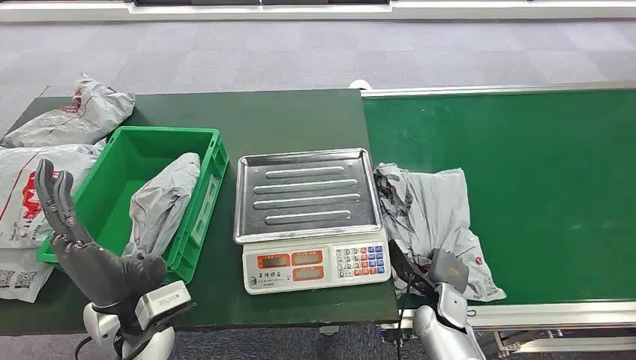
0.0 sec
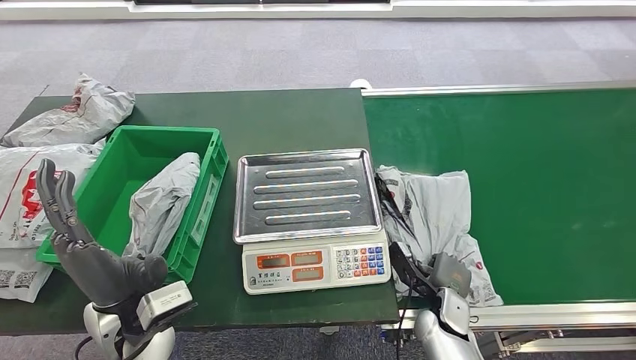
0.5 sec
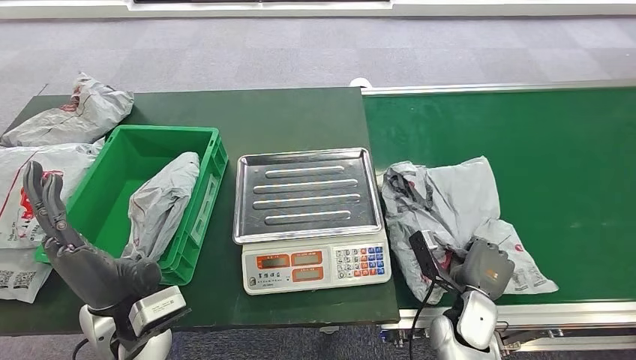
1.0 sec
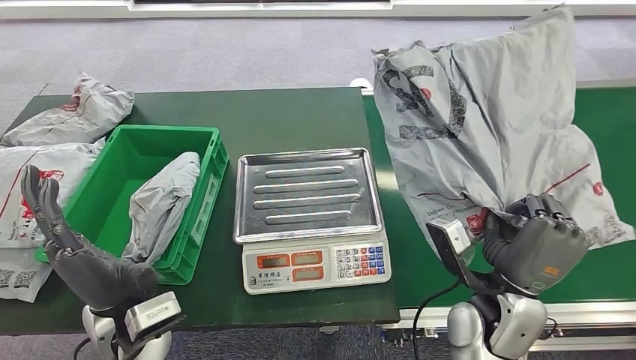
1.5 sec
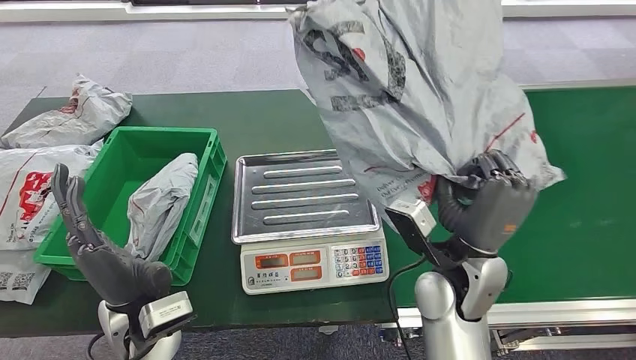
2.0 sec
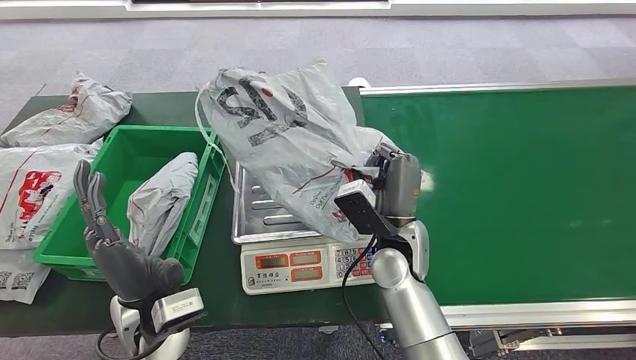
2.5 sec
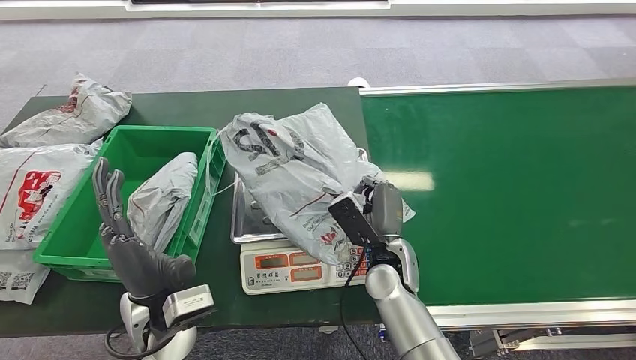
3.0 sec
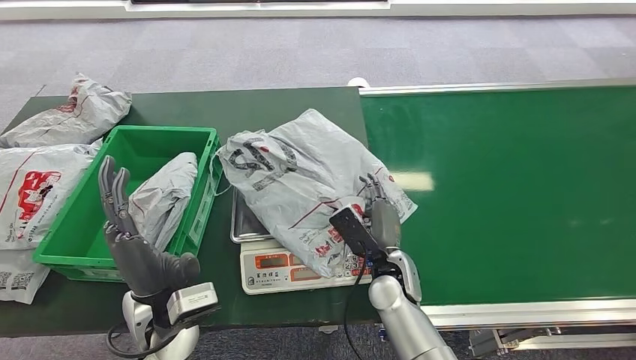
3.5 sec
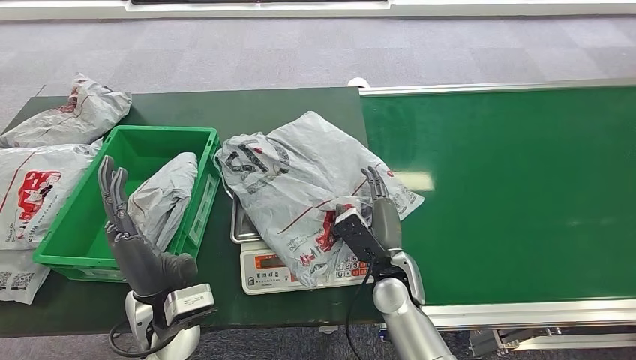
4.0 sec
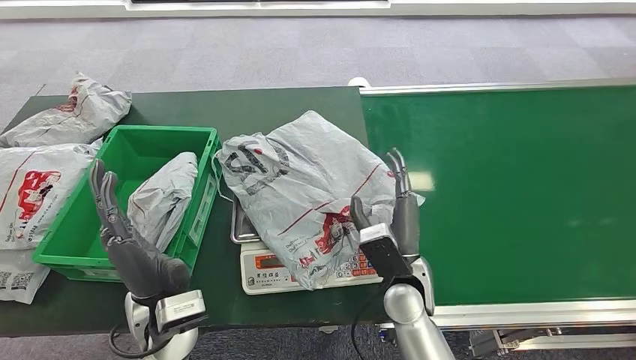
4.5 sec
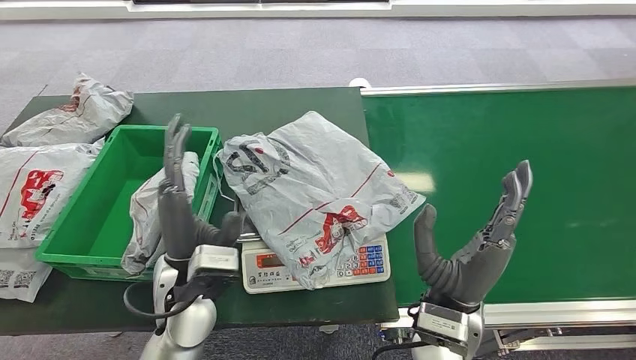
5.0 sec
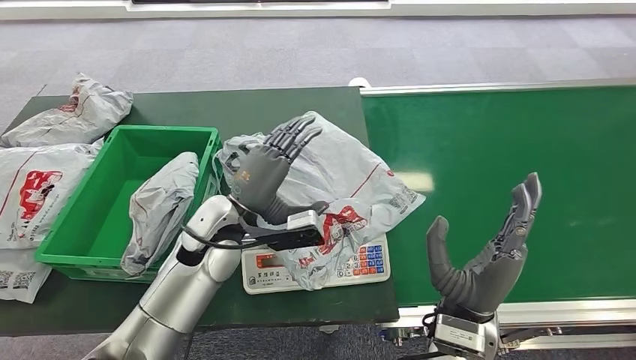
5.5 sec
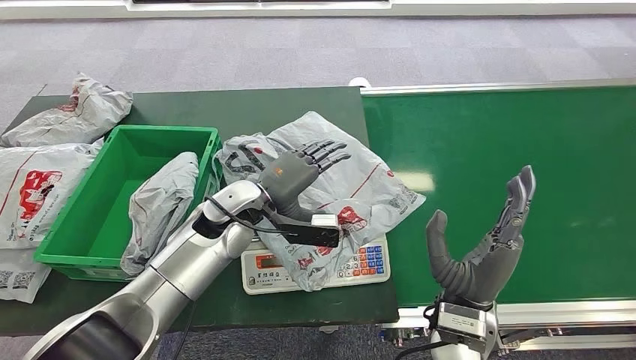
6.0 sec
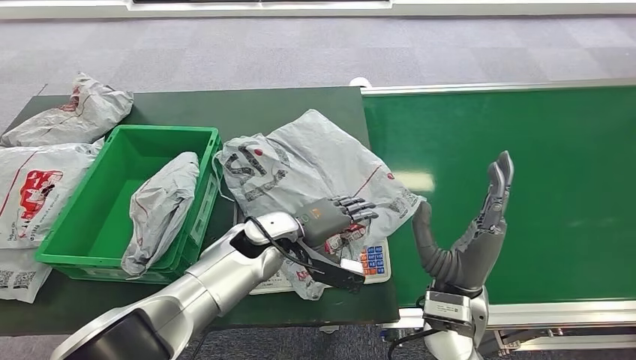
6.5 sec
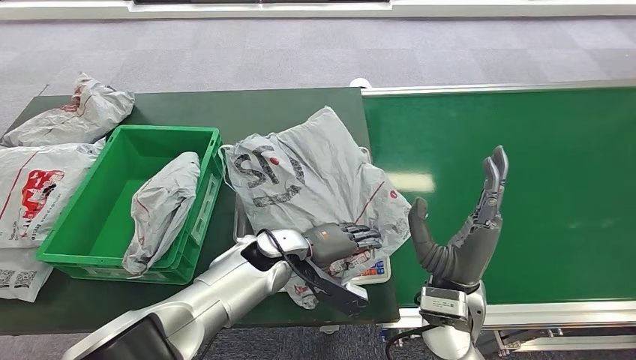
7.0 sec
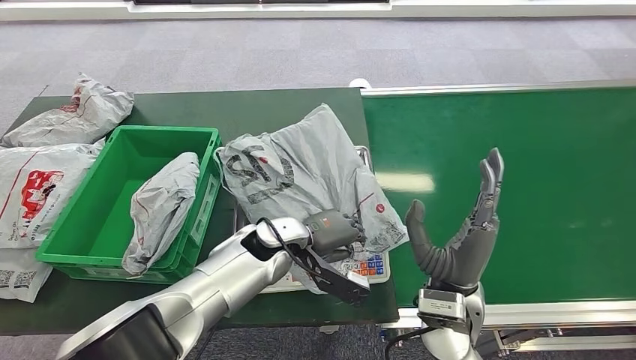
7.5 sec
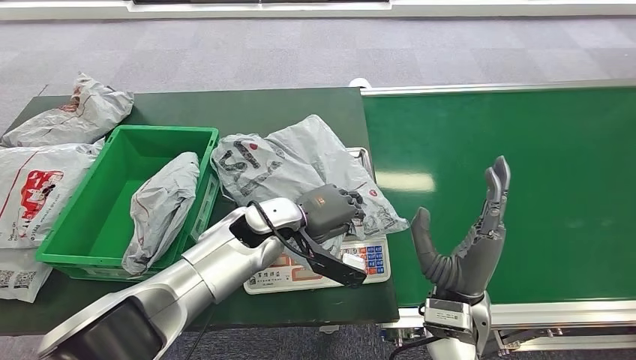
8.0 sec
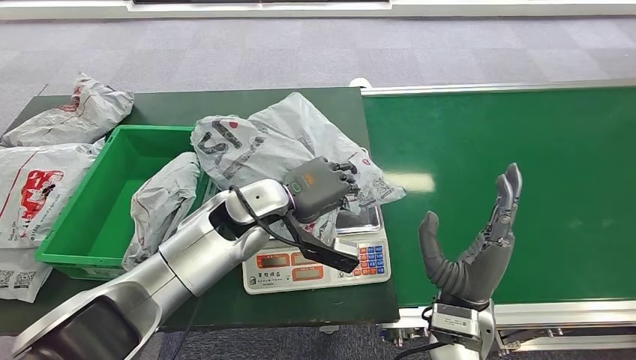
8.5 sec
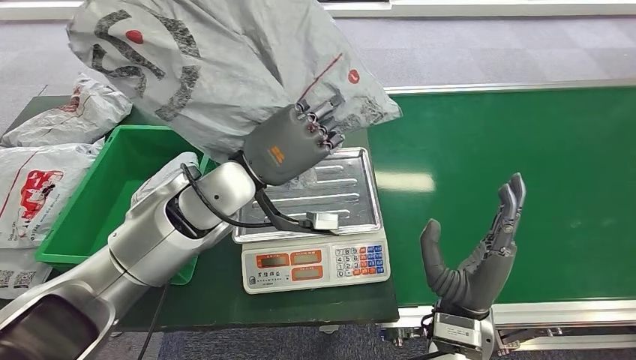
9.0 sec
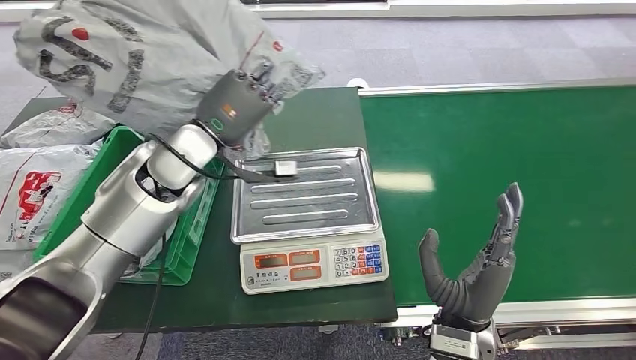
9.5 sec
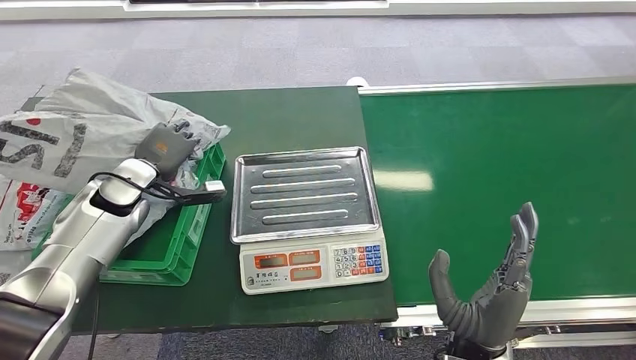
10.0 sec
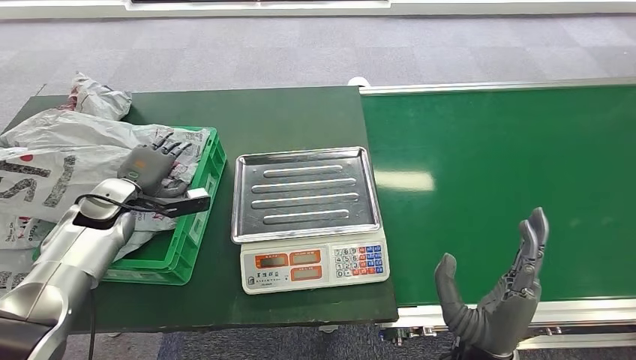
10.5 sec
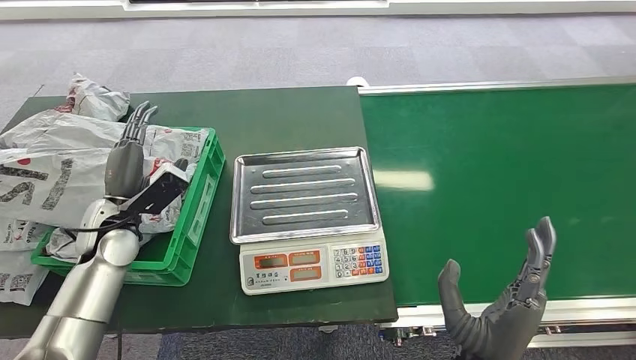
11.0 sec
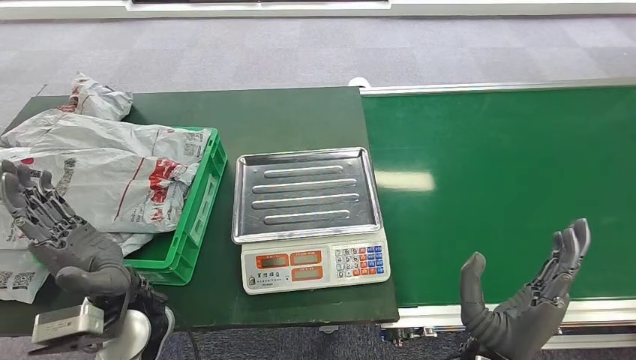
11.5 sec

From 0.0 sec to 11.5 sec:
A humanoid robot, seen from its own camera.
Step, from 0.0 sec to 1.5 sec: Pick up the package from the conveyor belt.
Step, from 2.0 sec to 4.5 sec: Place the package onto the inbound machine.
Step, from 5.0 sec to 9.0 sec: Pick up the package from the inbound machine.
Step, from 9.5 sec to 11.5 sec: Place the package into the parcel locker.
From 4.0 sec to 6.0 sec: The right hand shifts about 15 cm upward, backward and to the right. The left hand is displaced forward by approximately 15 cm.

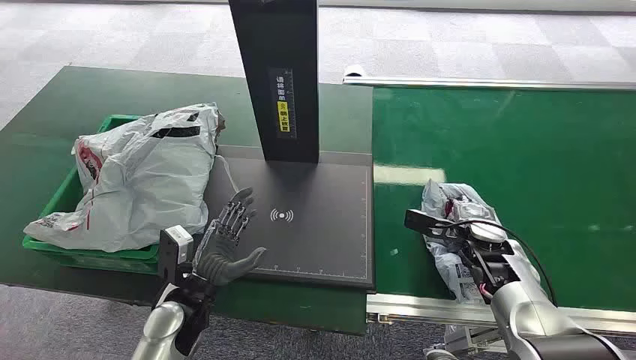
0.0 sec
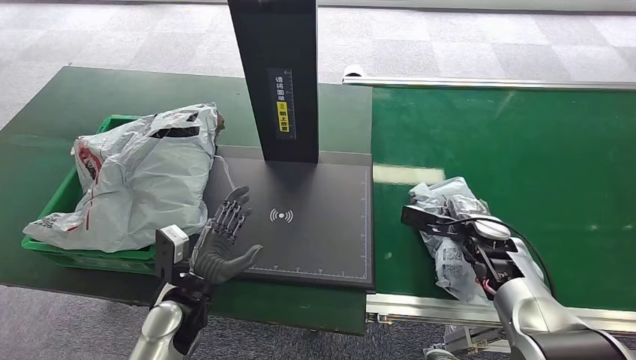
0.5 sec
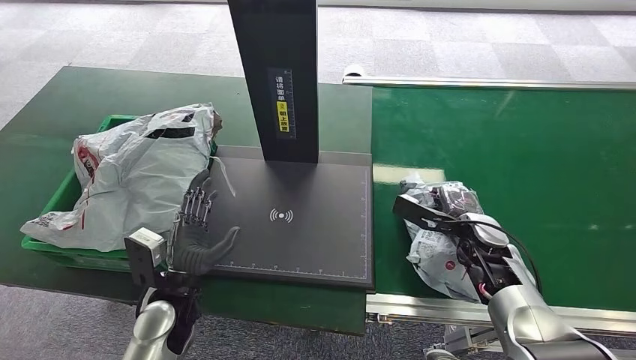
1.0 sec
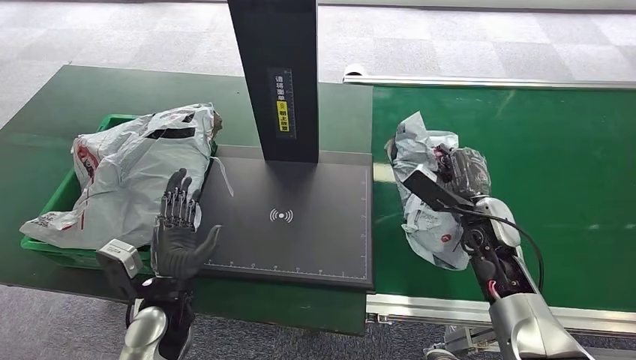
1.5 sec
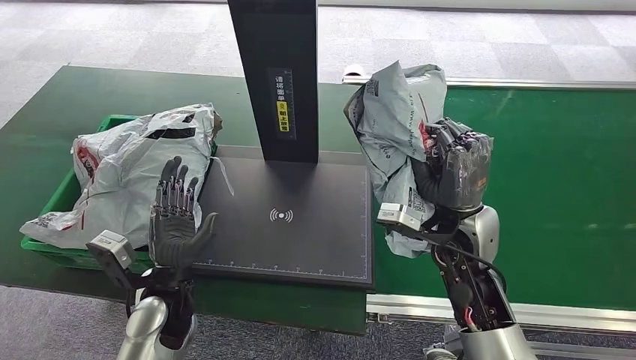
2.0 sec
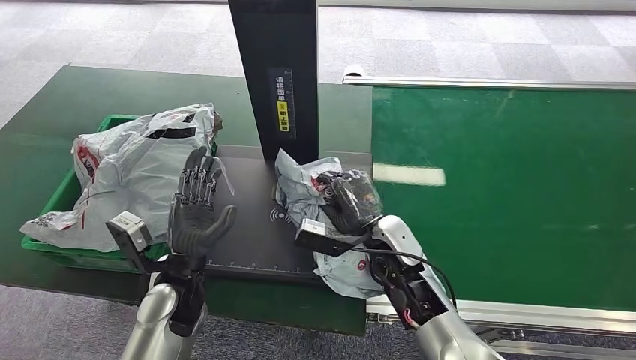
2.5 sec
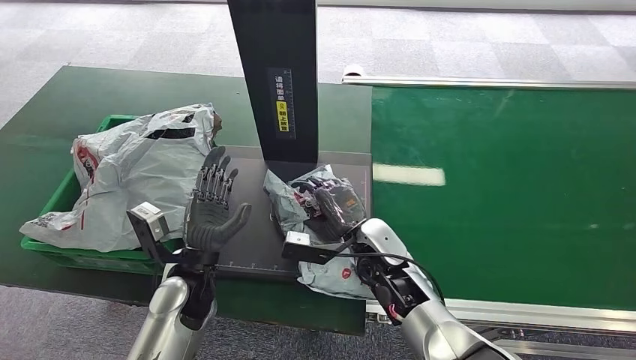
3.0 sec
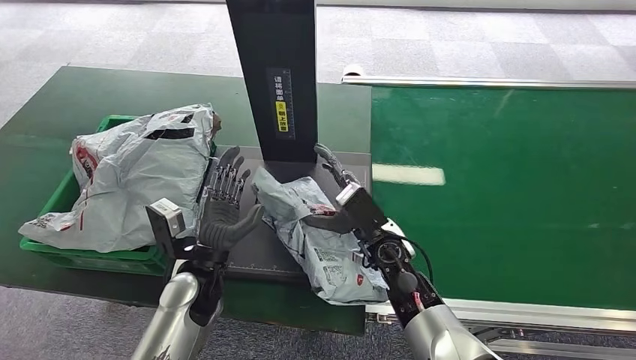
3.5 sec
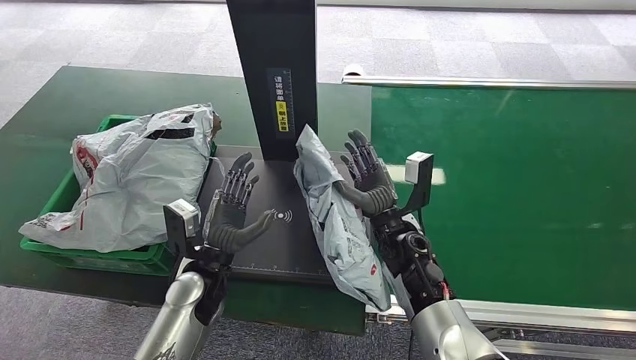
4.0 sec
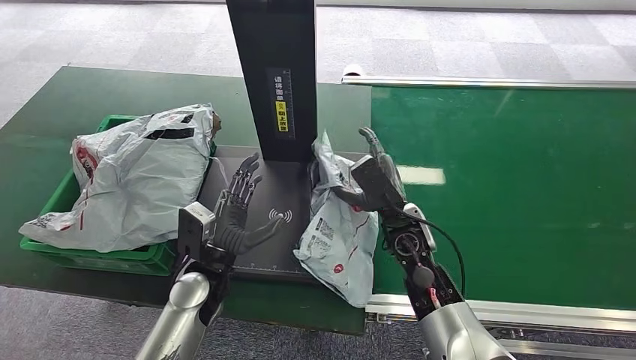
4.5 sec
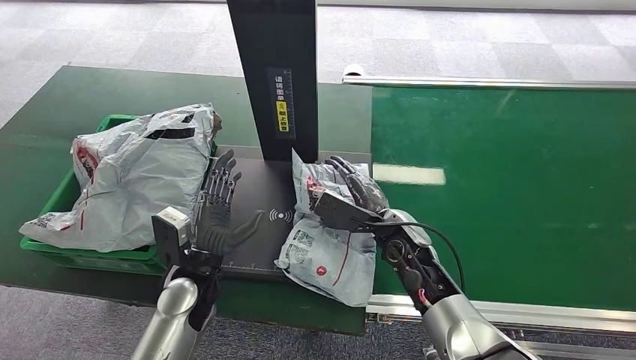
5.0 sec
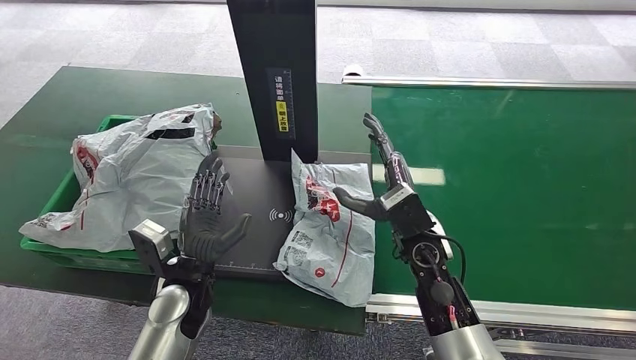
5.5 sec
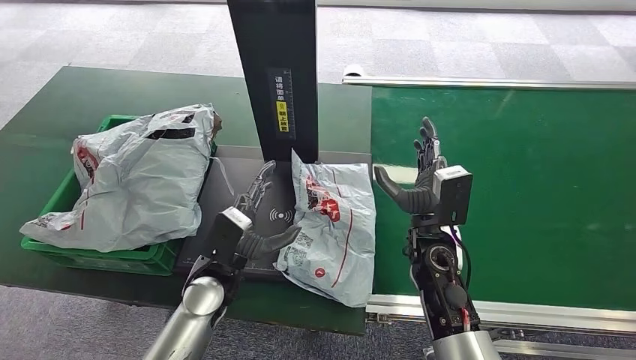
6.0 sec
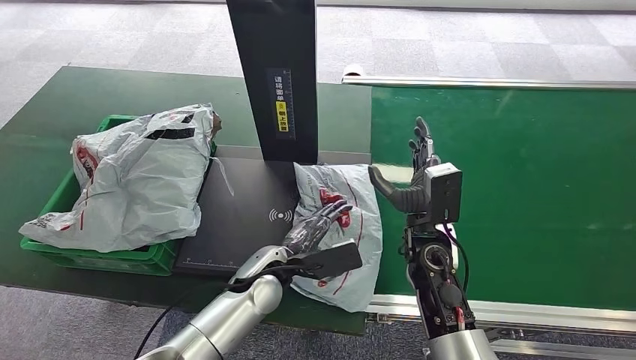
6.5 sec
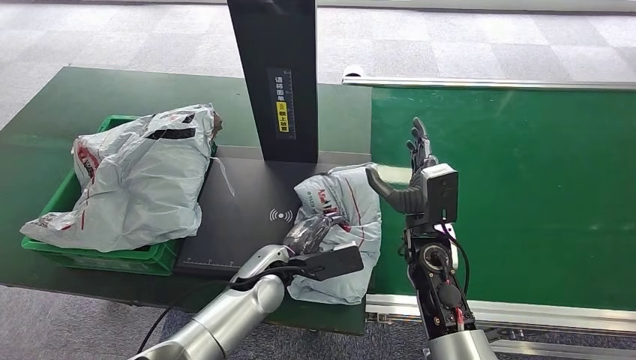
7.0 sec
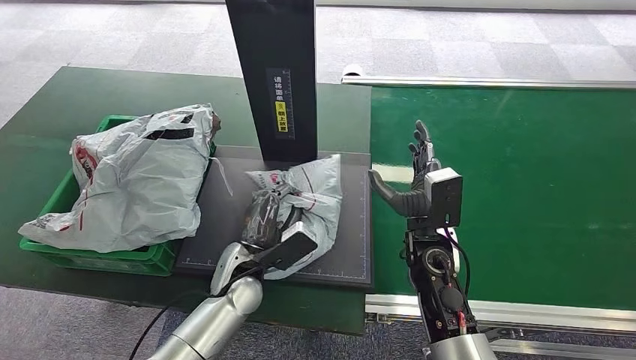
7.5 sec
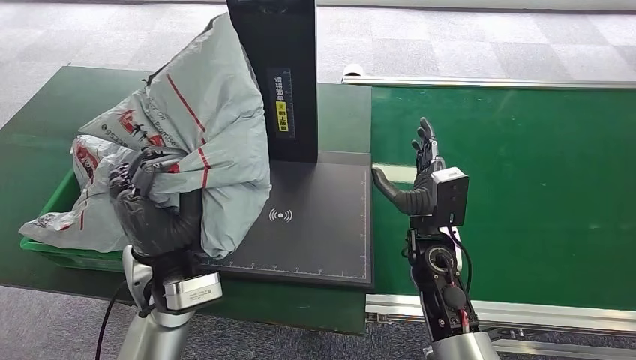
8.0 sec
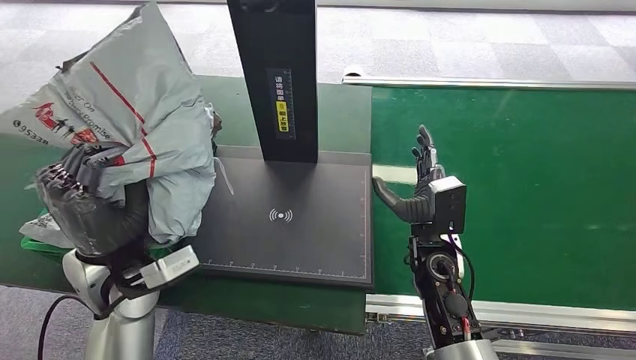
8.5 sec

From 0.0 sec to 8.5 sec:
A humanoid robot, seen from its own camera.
Step, from 0.0 sec to 2.0 sec: Pick up the package from the conveyor belt.
Step, from 2.5 sec to 4.0 sec: Place the package onto the inbound machine.
Step, from 4.5 sec to 8.5 sec: Pick up the package from the inbound machine.
From 4.0 sec to 6.5 sec: The left hand goes roughly 10 cm to the right.
